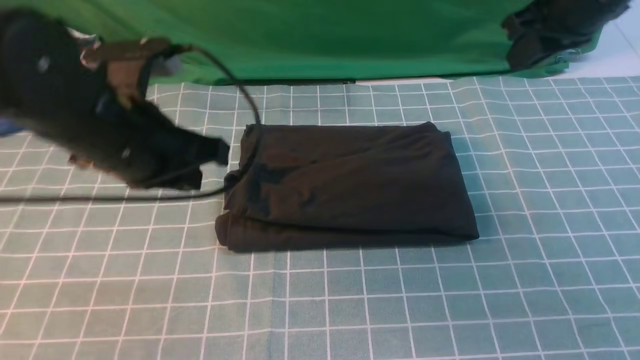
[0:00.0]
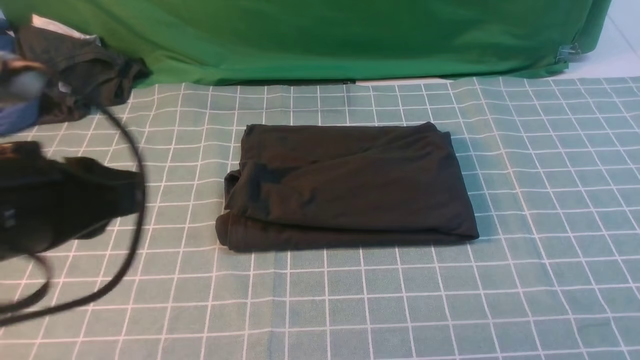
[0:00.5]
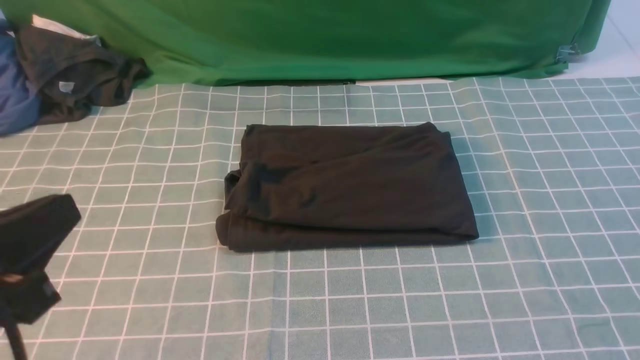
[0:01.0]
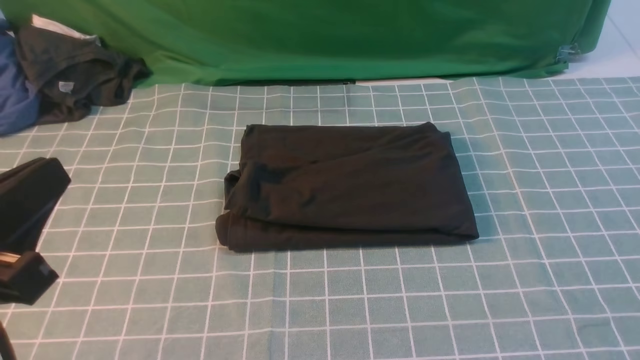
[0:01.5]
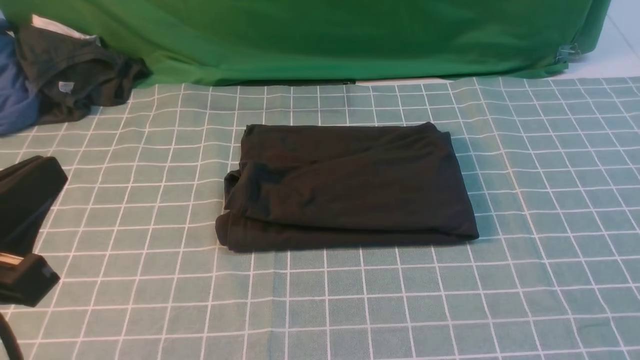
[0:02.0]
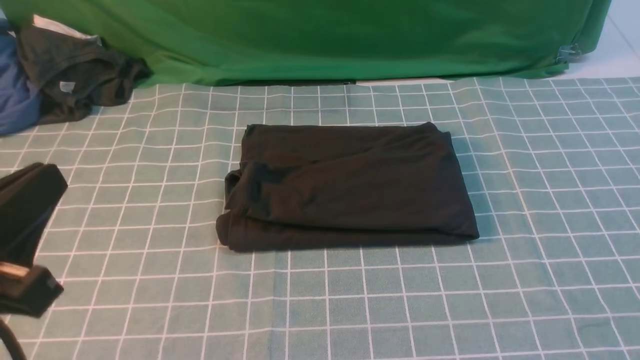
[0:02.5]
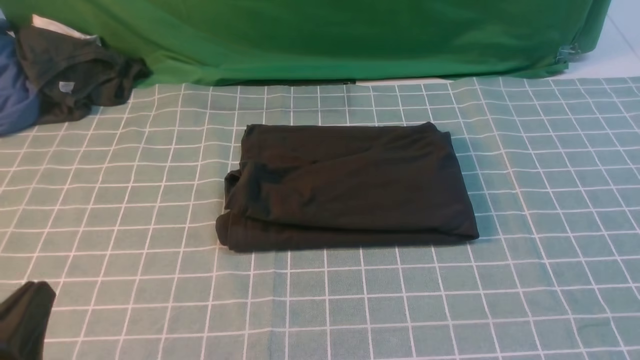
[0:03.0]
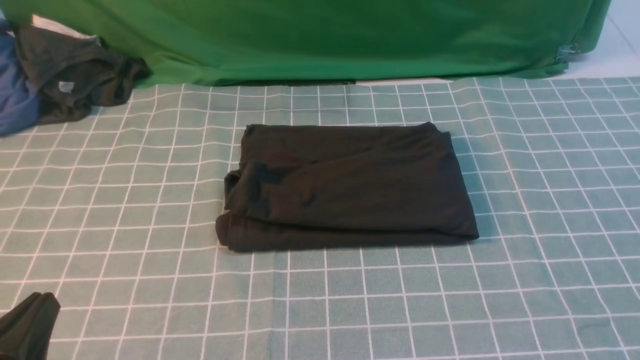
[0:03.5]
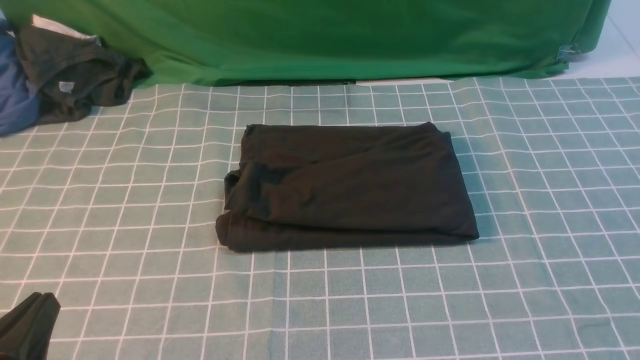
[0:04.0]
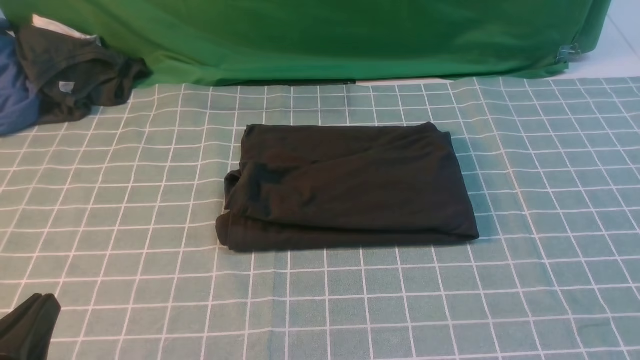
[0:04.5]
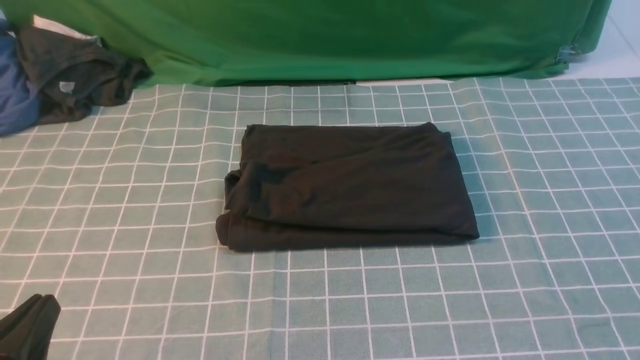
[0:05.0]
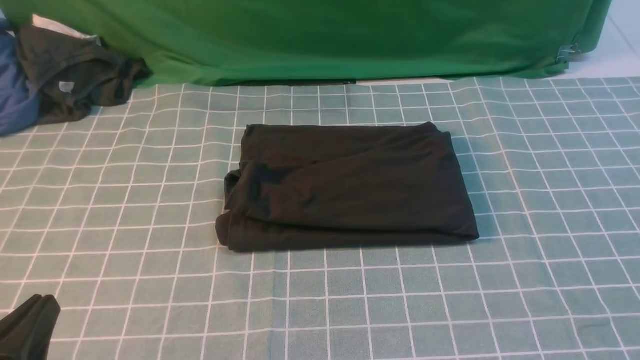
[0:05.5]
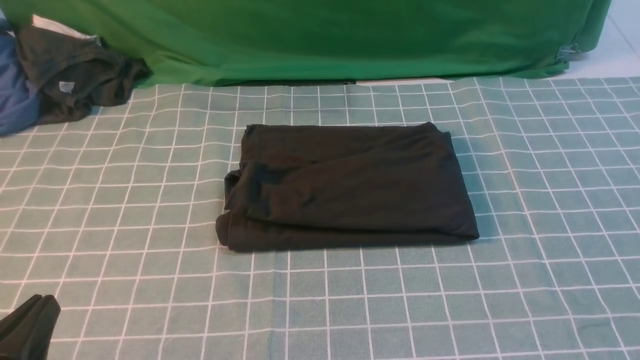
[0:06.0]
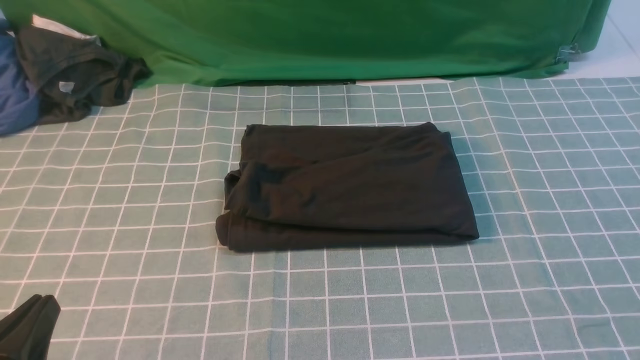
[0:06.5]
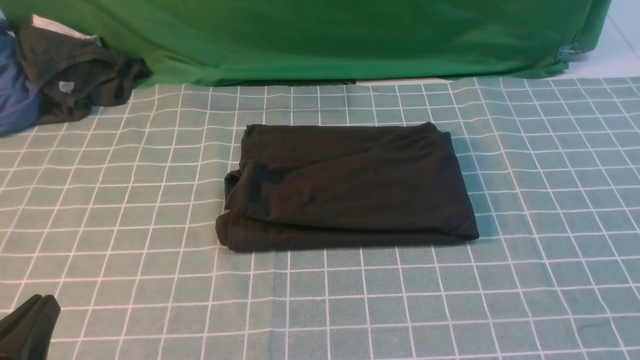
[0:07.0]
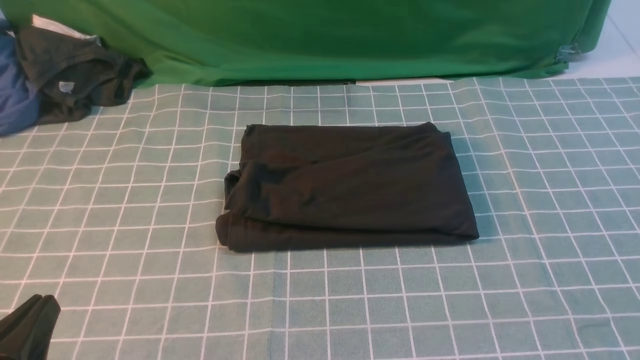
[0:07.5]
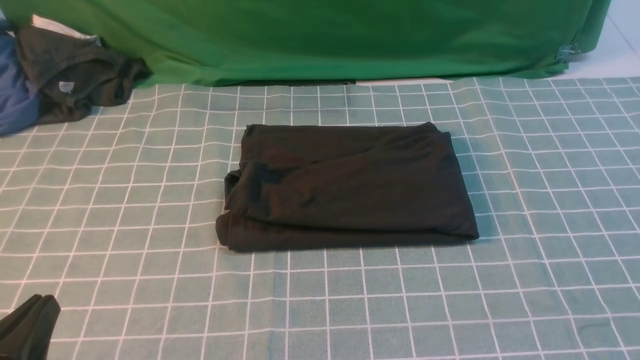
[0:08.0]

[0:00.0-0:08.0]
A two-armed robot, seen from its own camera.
0:00.0 to 0:02.0: The right gripper travels backward by roughly 40 cm; the left gripper goes approximately 20 cm backward.
0:02.0 to 0:04.0: The left gripper goes about 10 cm downward.
0:06.0 to 0:08.0: Both grippers stay put.
